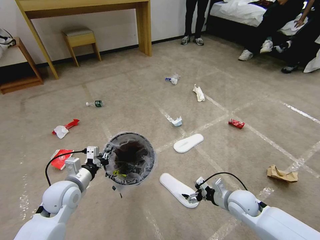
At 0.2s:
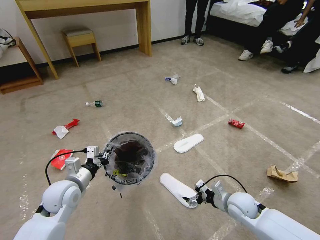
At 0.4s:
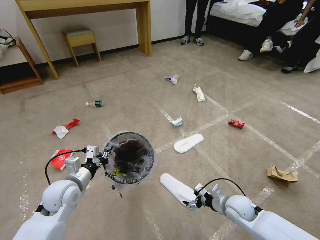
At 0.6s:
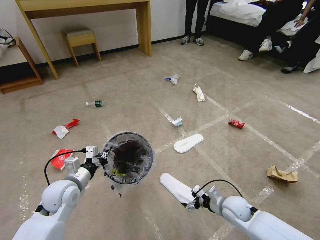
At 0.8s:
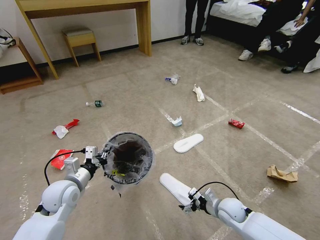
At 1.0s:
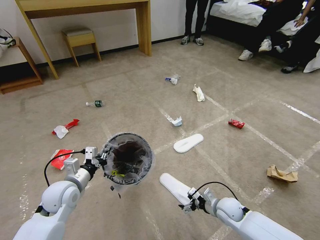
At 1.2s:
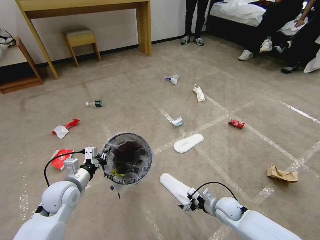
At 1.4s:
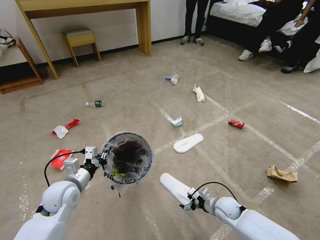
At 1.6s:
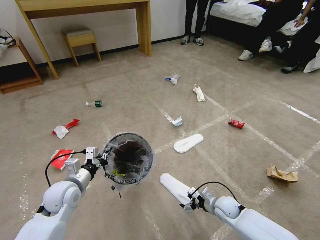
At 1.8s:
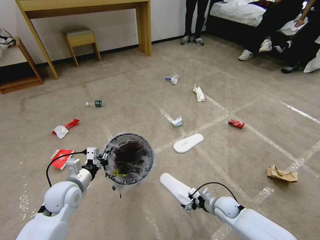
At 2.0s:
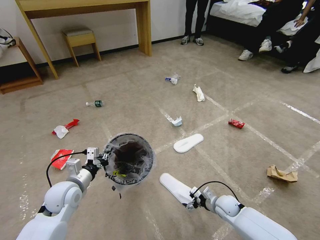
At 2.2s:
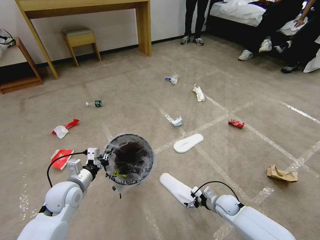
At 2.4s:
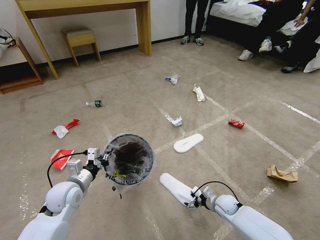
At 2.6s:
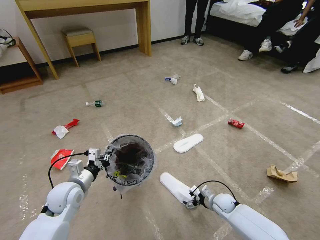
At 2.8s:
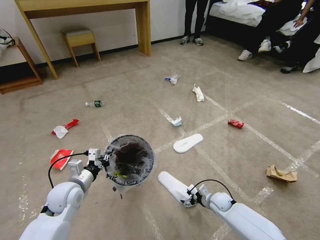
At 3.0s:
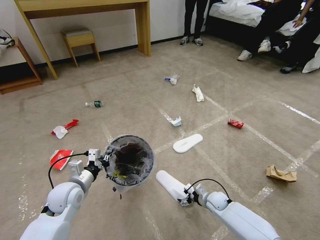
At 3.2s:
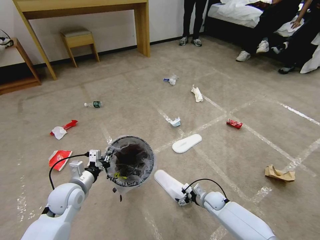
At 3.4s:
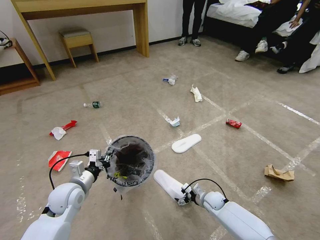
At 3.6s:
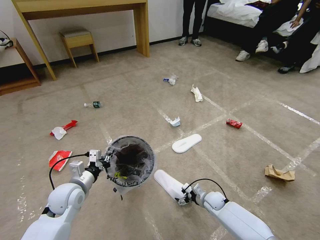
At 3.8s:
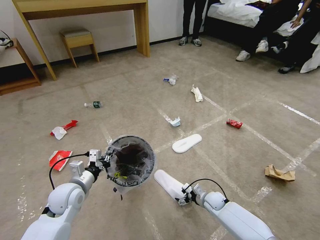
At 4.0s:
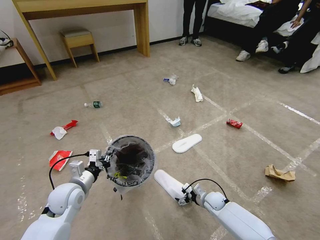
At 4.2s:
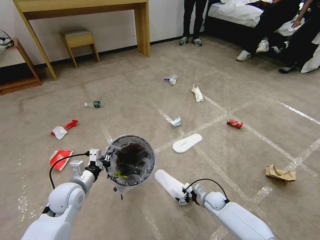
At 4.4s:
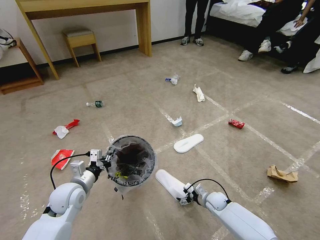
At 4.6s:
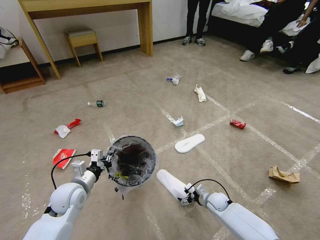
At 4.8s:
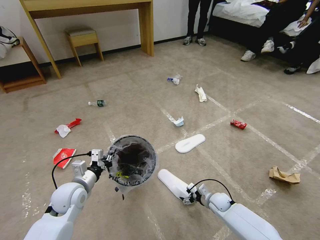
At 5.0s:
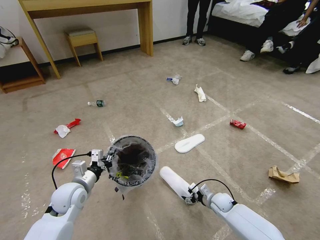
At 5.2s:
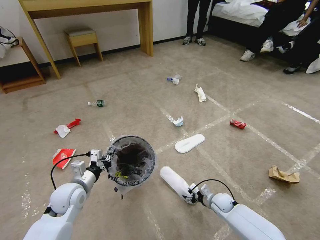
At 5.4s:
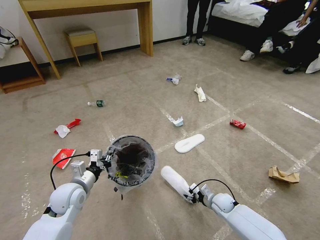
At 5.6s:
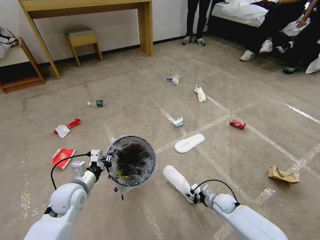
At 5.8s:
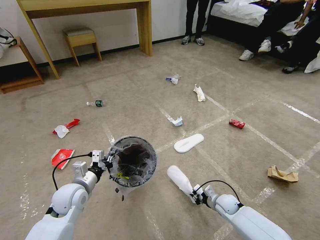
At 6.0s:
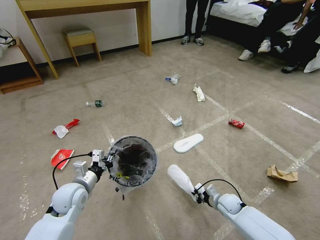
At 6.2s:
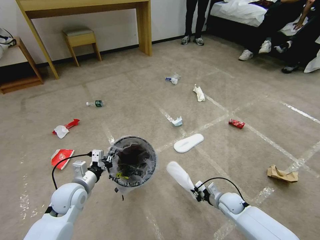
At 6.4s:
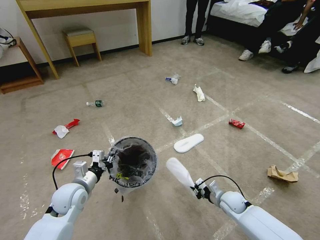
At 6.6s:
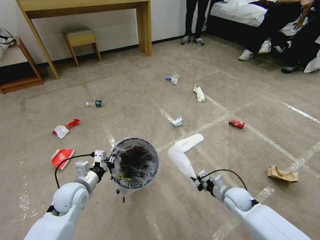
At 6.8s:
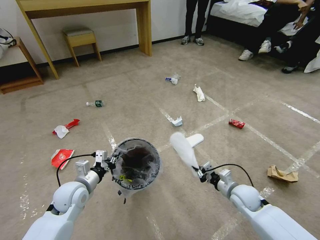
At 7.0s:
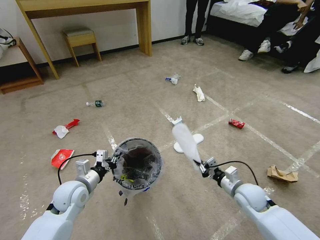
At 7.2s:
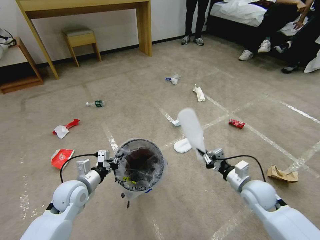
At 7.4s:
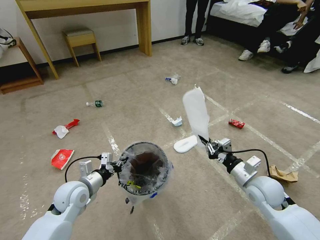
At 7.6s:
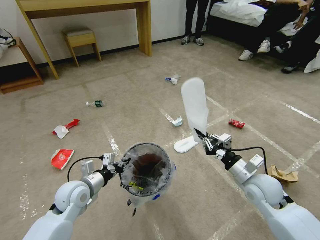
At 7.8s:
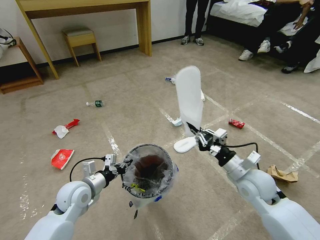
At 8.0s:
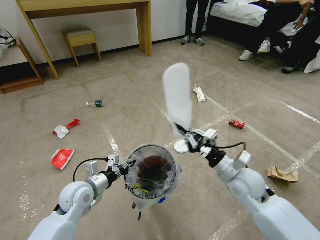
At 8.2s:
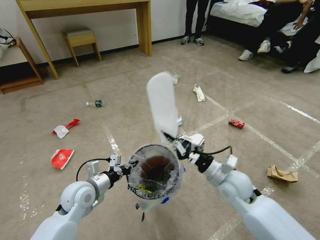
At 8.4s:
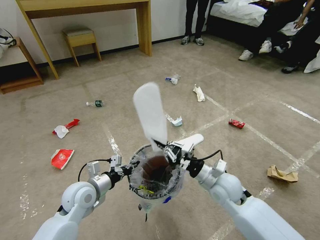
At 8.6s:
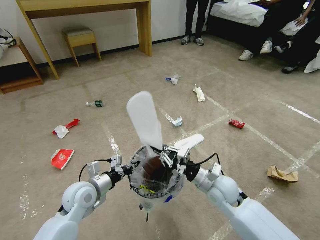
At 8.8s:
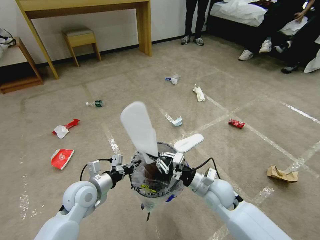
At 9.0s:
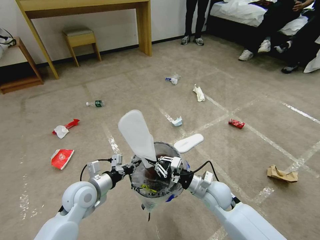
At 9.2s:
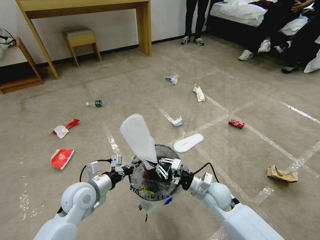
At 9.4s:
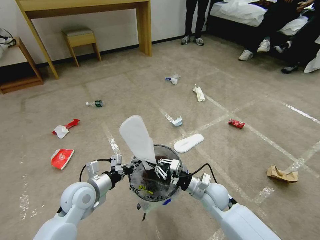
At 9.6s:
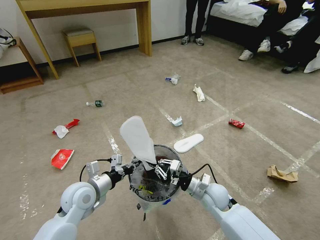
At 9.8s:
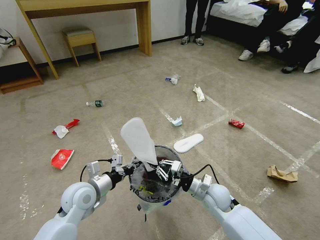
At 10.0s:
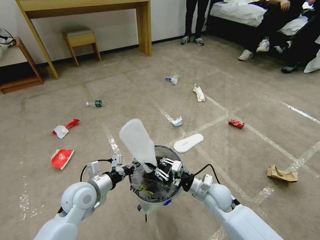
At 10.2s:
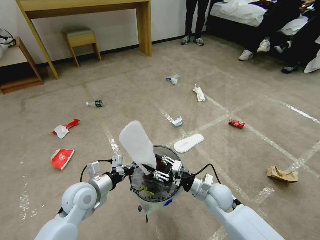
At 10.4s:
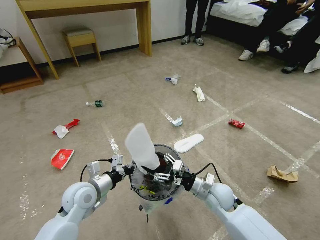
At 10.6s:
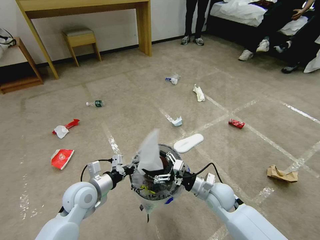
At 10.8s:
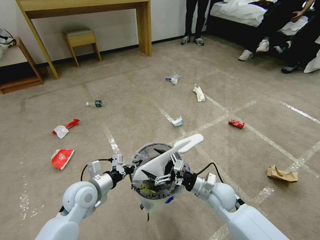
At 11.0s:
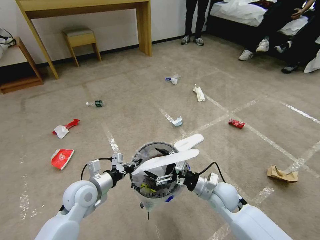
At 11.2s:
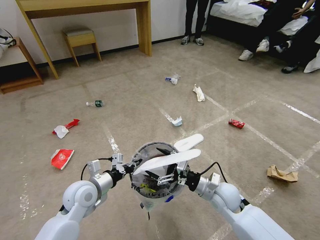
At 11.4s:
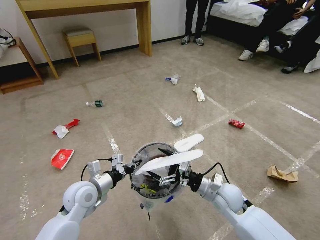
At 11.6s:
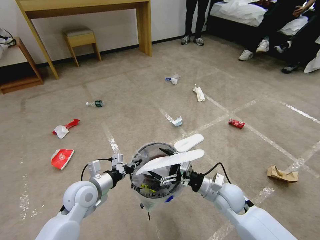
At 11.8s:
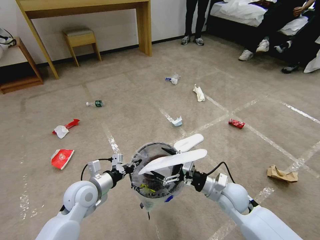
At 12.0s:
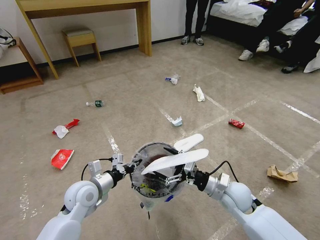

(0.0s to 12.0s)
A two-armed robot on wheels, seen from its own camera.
Task of the whole recording: Pick up the trash bin and place the garbage on the floor into it.
0.0s - 1.6s: The right gripper is displaced downward by some 10 cm.
1.6s - 3.0s: The right gripper ends up roughly 5 cm from where it was.
3.0s - 4.4s: Both grippers stay about where they are.
4.4s - 6.0s: The right gripper moves some 5 cm, and closes up.
6.0s - 7.6s: The right gripper goes approximately 25 cm upward.
7.6s - 9.0s: The right gripper moves to the left and downward, approximately 15 cm.
9.0s - 10.4s: The right gripper opens up.
10.4s - 12.0s: The right gripper moves approximately 5 cm.

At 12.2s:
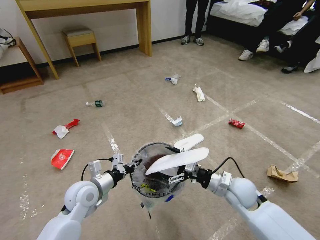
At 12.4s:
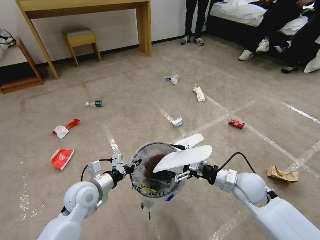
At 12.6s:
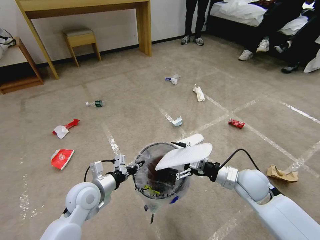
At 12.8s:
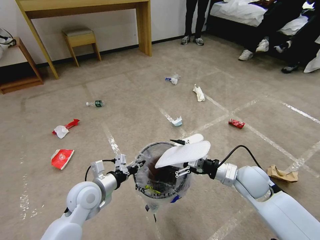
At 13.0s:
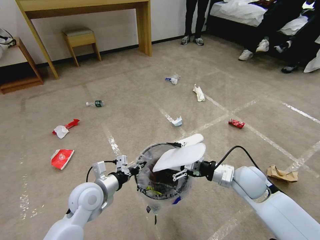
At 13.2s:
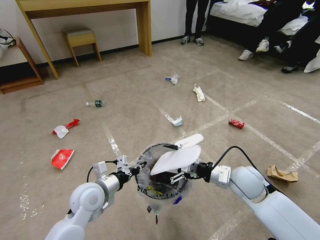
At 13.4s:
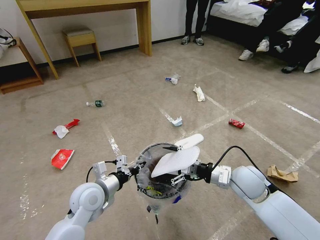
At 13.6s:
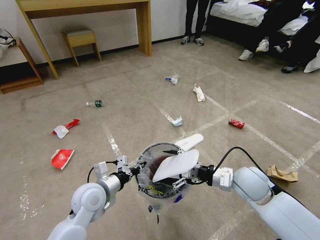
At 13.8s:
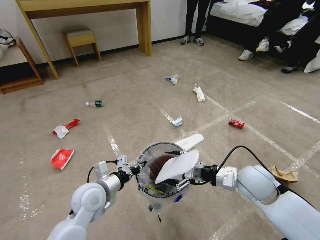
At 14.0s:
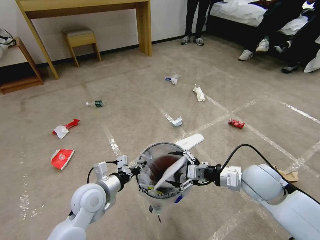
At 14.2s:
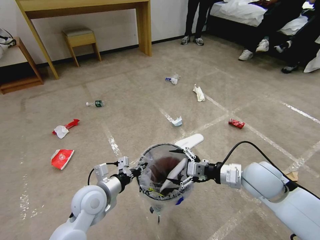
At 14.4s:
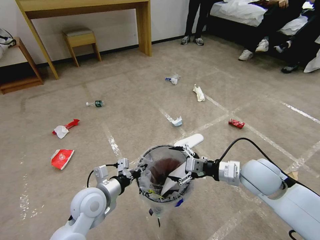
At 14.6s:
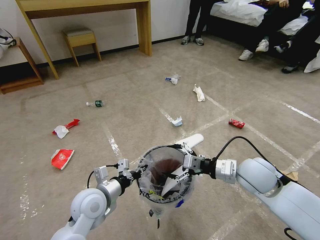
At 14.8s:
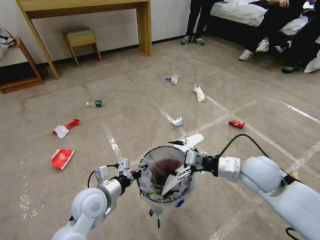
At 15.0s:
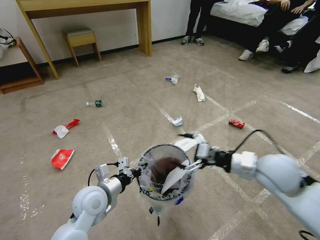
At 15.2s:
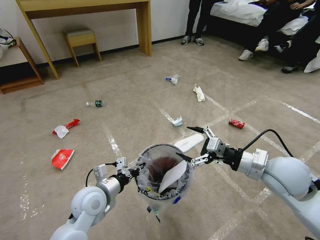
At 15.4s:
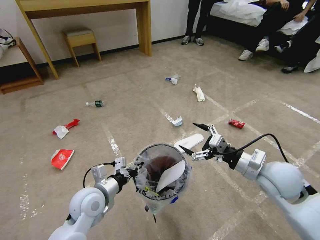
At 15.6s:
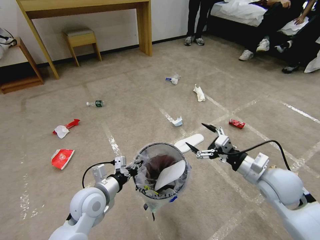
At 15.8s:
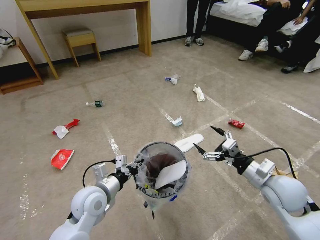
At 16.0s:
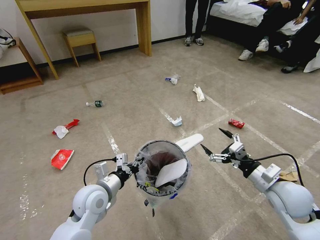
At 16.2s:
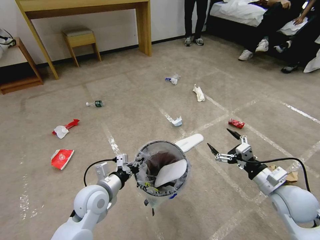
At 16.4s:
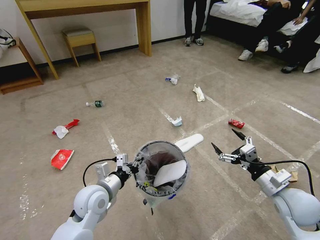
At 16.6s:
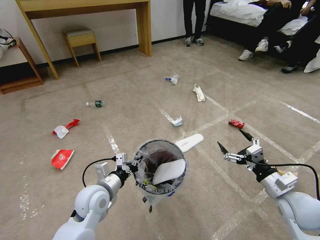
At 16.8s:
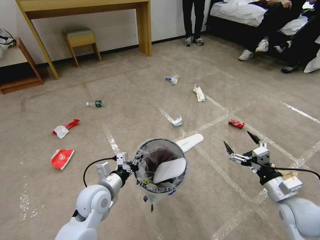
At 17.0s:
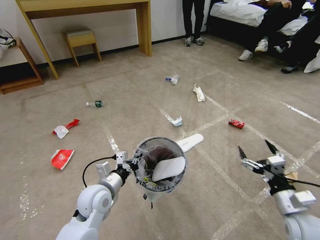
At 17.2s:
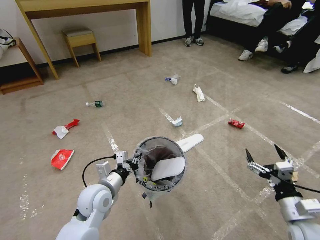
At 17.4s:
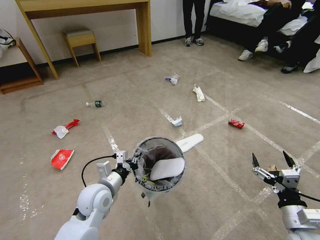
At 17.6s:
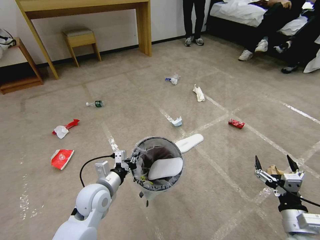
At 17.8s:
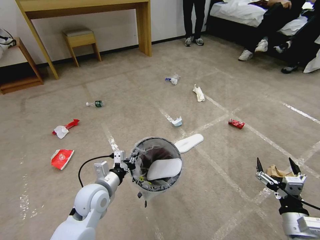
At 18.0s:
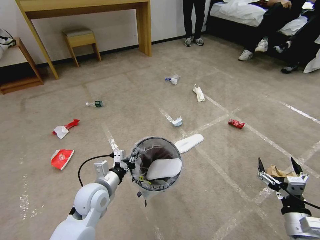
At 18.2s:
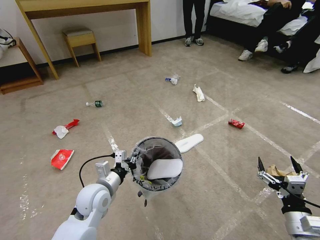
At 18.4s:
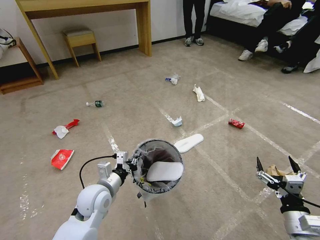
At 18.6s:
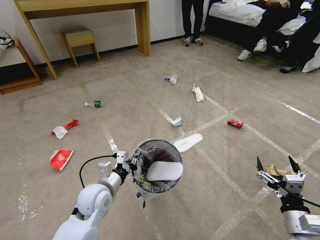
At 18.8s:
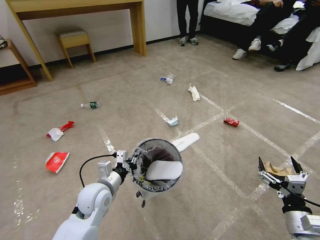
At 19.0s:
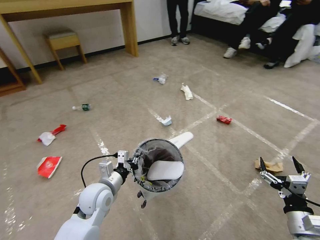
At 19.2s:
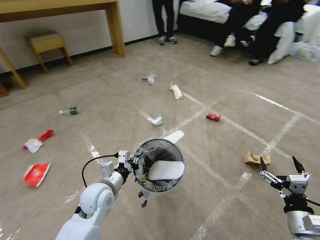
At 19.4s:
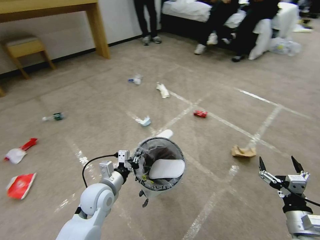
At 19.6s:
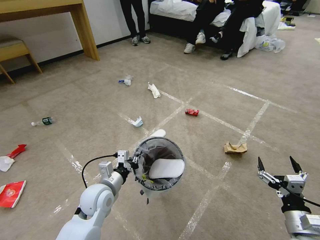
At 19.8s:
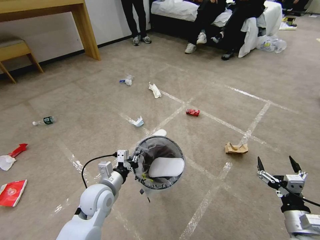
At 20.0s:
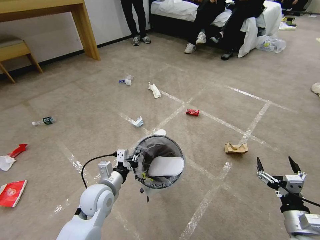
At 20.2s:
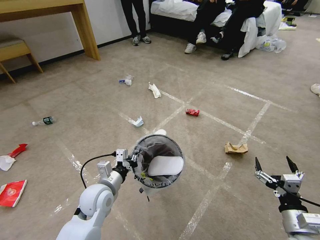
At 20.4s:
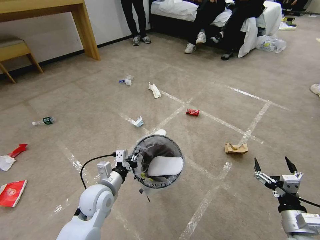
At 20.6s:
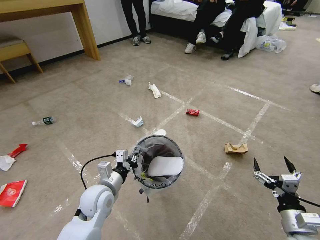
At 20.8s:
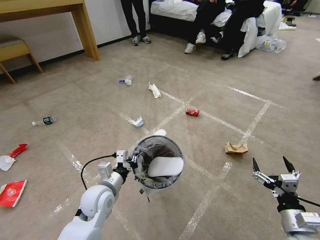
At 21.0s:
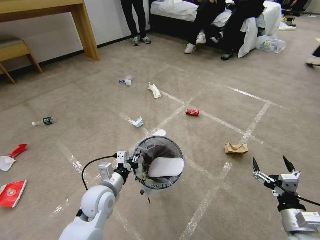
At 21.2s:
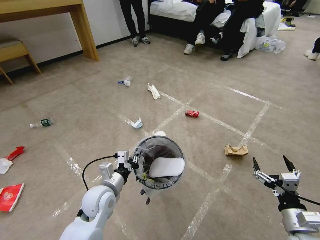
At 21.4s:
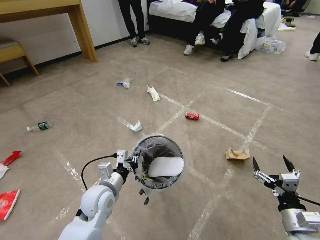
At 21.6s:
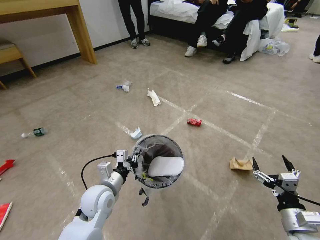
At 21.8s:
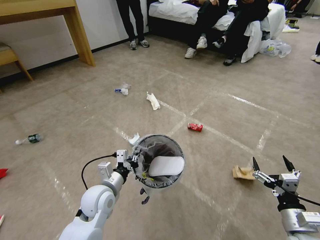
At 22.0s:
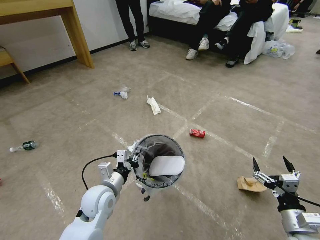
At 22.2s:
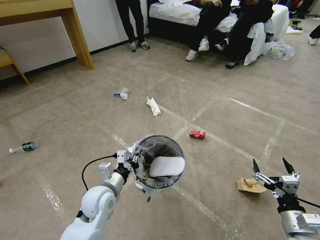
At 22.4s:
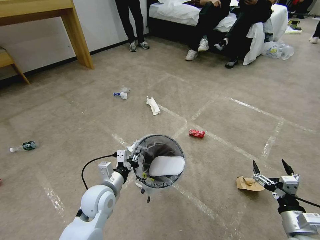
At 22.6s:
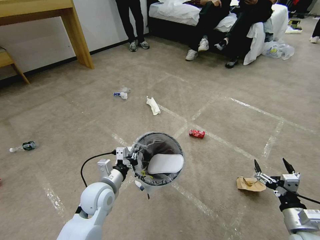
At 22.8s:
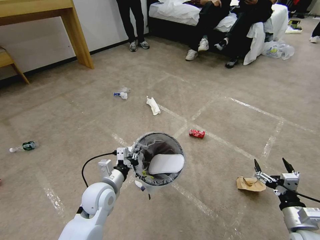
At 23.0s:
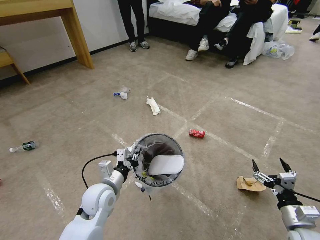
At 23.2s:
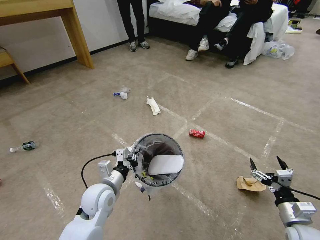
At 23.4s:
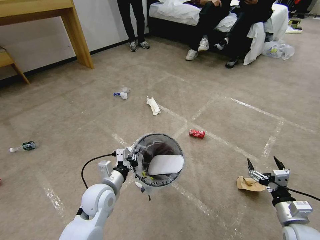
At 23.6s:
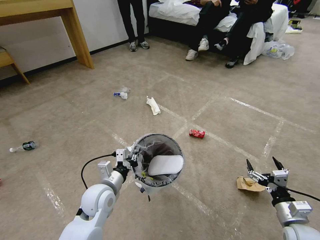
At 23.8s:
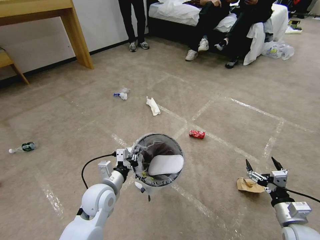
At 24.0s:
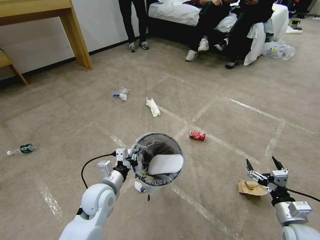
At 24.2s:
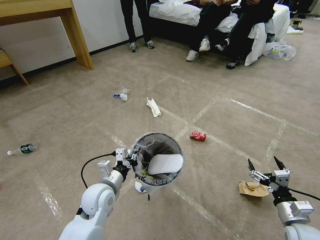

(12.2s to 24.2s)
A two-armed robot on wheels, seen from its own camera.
Task of the whole recording: Pick up the trash bin and place the garbage on the floor into it.
12.2s - 13.8s: The right gripper shifts roughly 5 cm upward.
13.8s - 15.2s: The right gripper heads upward, covering roughly 5 cm.
15.2s - 16.6s: The right gripper moves downward, to the right and backward, about 15 cm.
16.6s - 18.2s: The right gripper goes approximately 10 cm backward.
19.8s - 21.2s: Neither gripper changes place.
22.6s - 24.2s: The grippers stay close to where they were, moving slightly.
